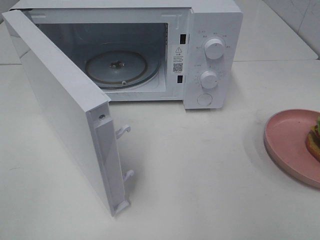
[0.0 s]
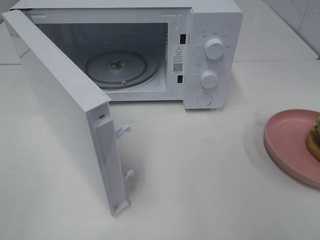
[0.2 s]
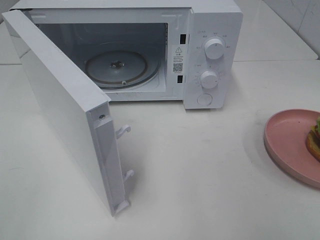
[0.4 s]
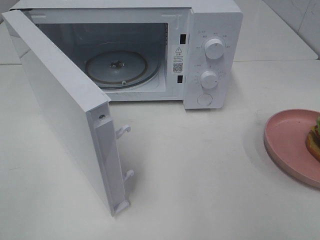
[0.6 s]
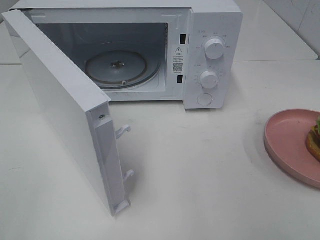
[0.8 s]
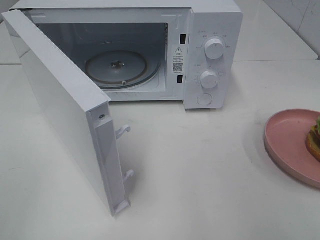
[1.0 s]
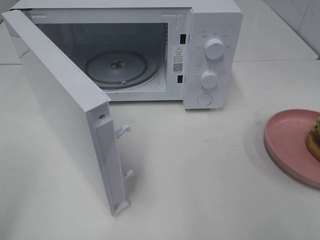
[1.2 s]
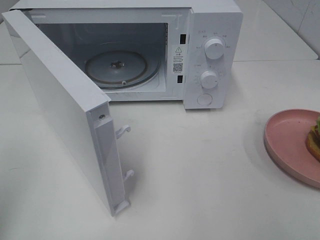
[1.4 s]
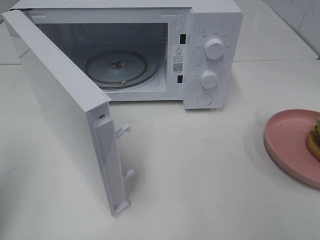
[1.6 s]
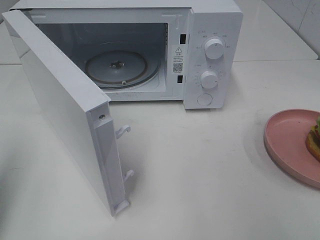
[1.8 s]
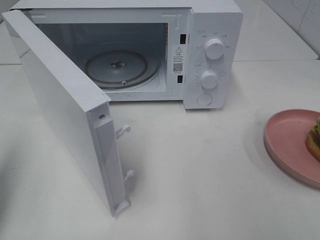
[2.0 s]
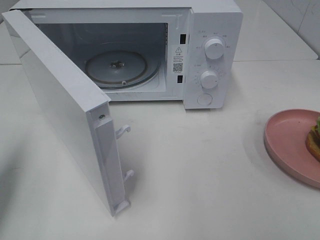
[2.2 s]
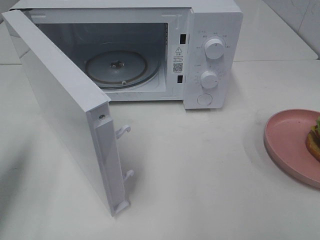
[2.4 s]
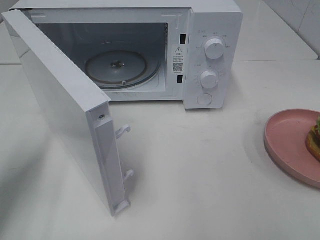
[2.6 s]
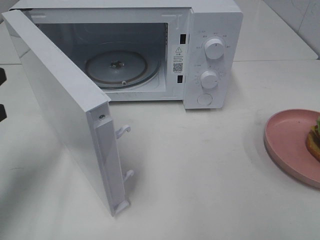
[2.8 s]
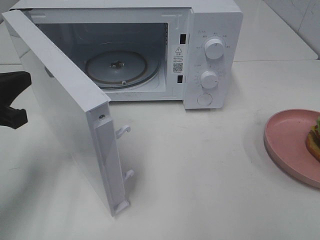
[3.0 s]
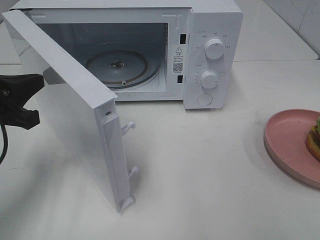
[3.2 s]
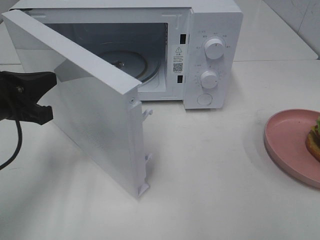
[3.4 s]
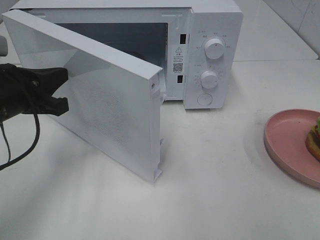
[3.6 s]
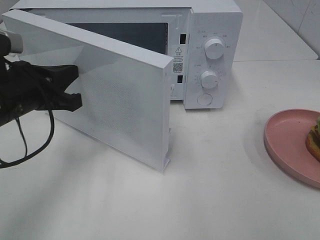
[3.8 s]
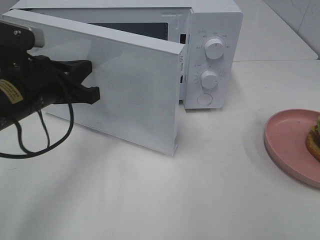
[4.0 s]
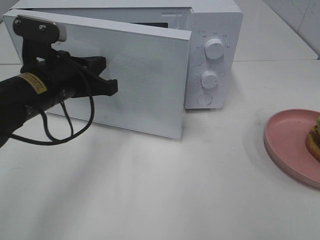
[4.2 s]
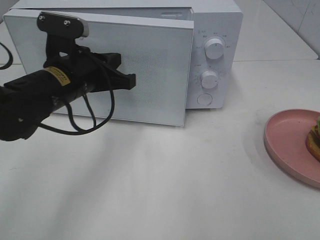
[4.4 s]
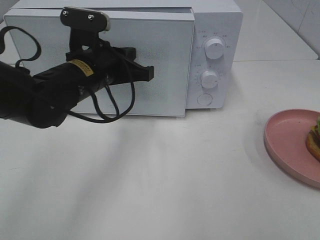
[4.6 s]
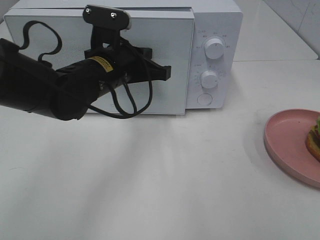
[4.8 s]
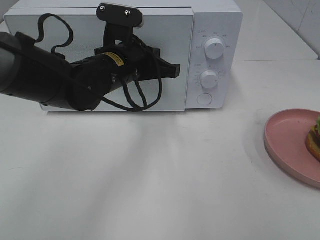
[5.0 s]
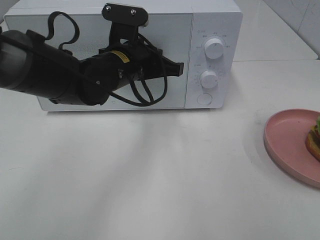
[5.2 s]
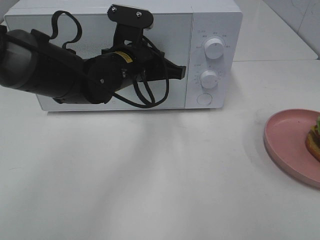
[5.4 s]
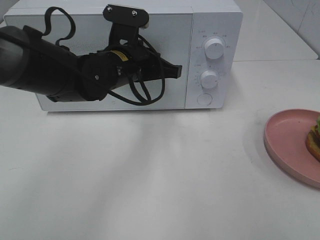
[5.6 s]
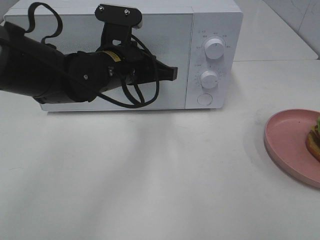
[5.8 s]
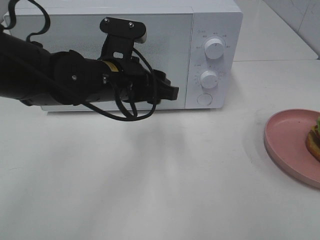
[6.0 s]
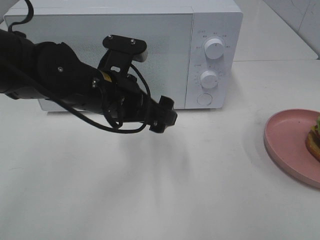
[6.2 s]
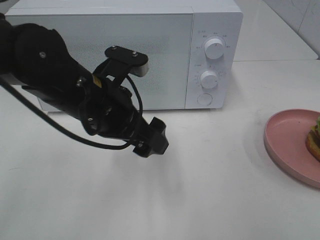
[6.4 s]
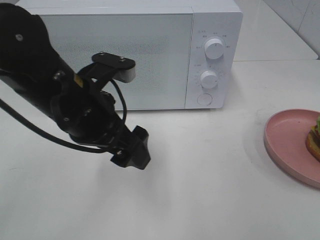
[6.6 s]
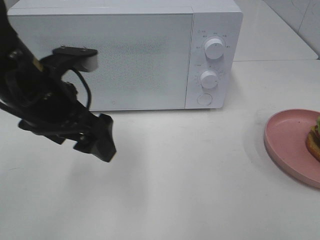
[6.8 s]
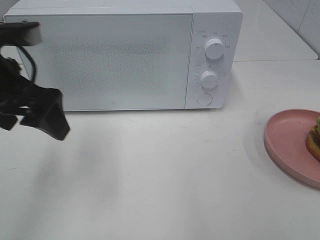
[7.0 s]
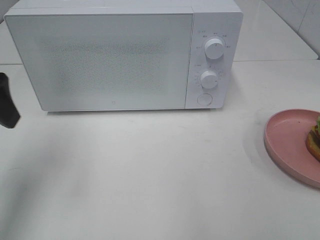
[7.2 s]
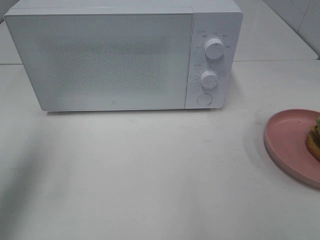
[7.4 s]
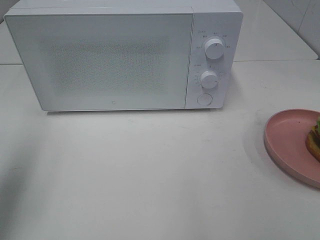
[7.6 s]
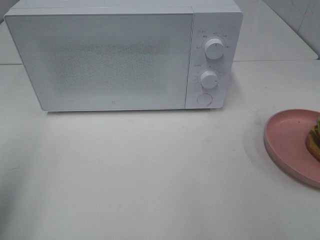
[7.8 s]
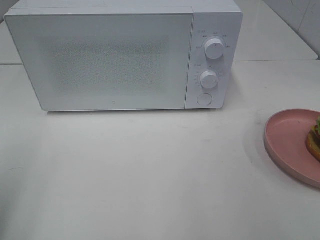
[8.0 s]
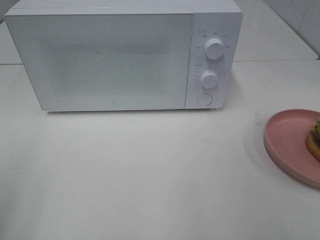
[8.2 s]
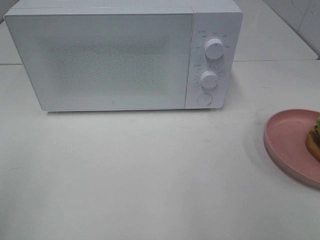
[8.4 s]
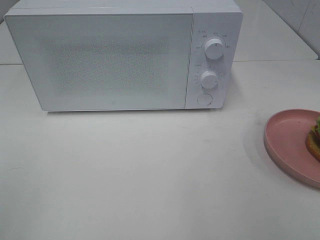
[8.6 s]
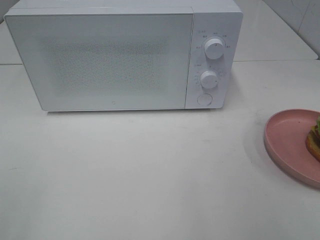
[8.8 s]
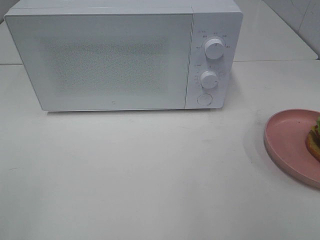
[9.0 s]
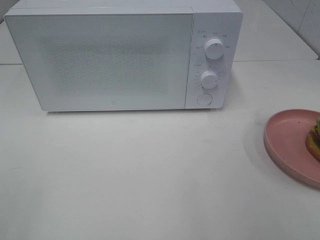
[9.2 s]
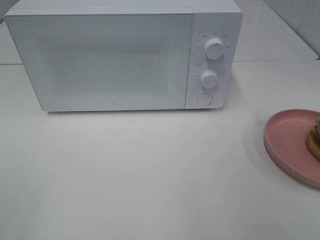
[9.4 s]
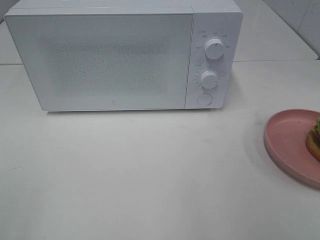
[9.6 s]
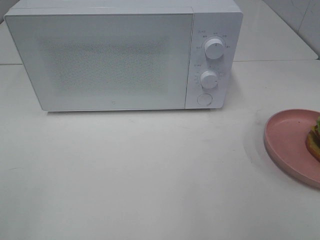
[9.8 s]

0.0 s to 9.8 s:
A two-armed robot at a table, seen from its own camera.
Task of the whole recording: Heat the burger.
Step, 0.0 to 6.0 s: Left hand: close the microwave door.
1.4 to 2.8 s: The left gripper shifts approximately 15 cm forward and downward.
2.8 to 4.2 s: The left gripper is displaced to the right and forward by some 15 cm.
4.2 to 5.6 s: The left gripper heads to the right and forward, covering roughly 10 cm.
5.6 to 7.0 s: The left gripper goes approximately 20 cm to the left, backward and upward, and opens up.
7.0 to 8.4 s: The left gripper shifts roughly 20 cm backward and to the left.

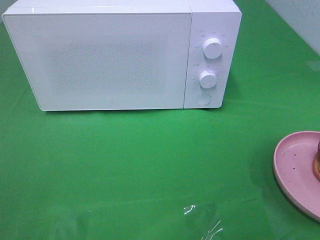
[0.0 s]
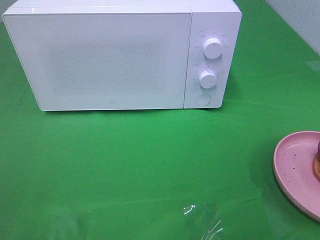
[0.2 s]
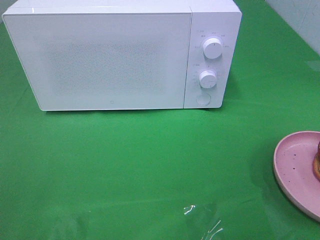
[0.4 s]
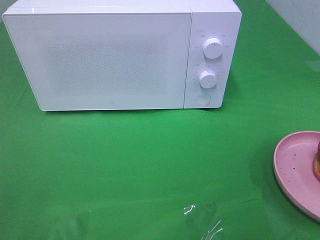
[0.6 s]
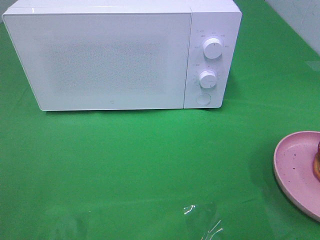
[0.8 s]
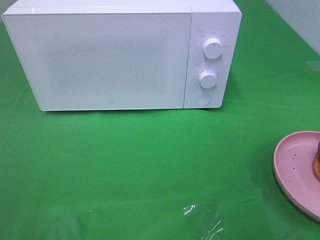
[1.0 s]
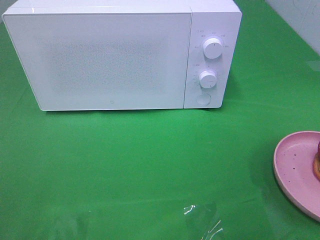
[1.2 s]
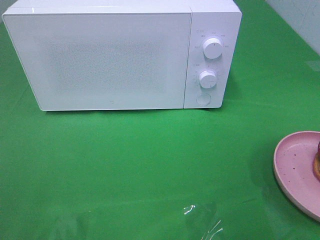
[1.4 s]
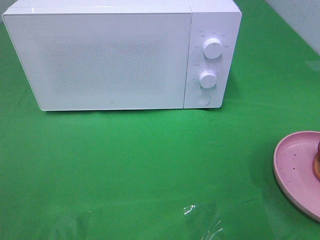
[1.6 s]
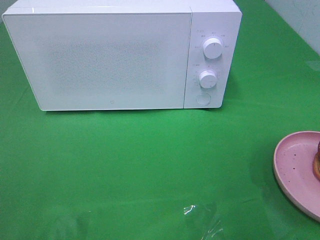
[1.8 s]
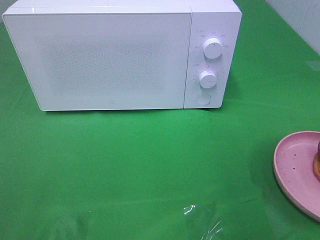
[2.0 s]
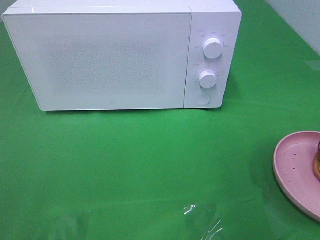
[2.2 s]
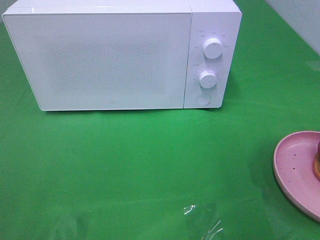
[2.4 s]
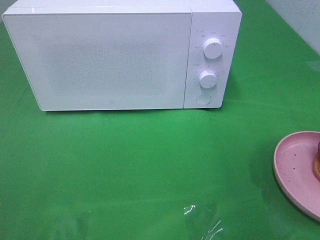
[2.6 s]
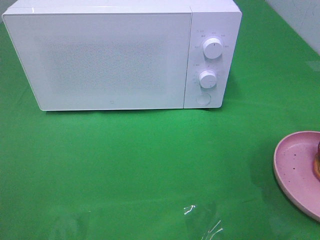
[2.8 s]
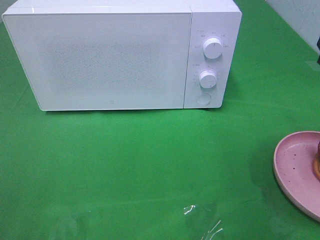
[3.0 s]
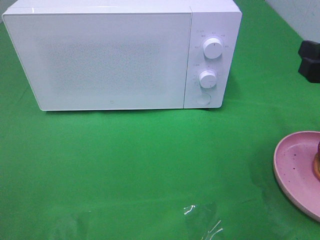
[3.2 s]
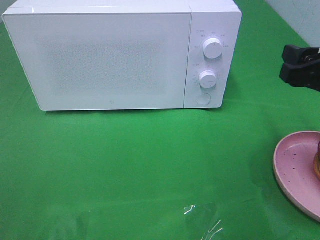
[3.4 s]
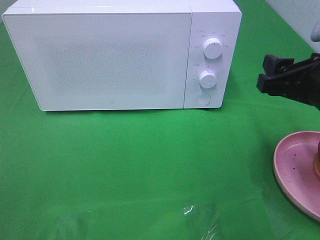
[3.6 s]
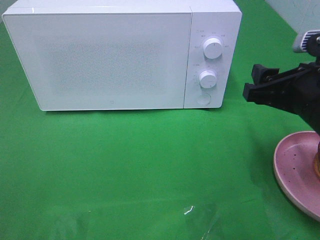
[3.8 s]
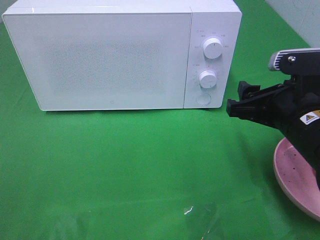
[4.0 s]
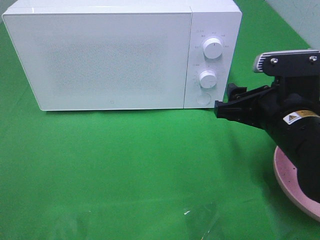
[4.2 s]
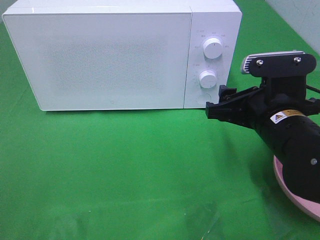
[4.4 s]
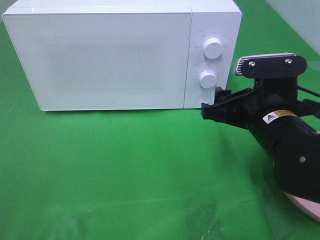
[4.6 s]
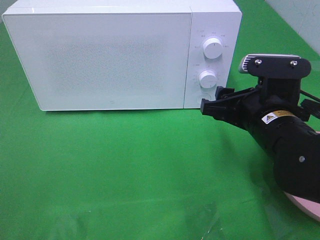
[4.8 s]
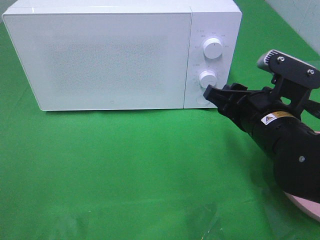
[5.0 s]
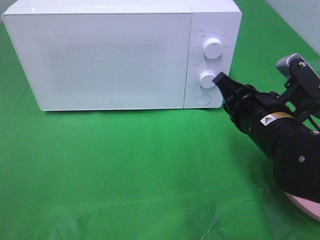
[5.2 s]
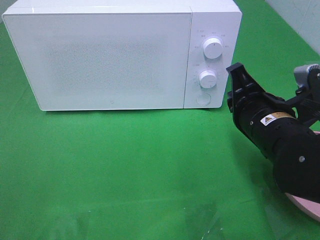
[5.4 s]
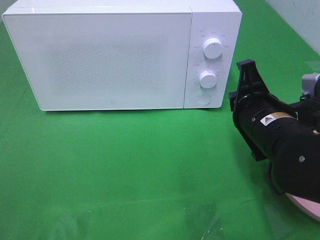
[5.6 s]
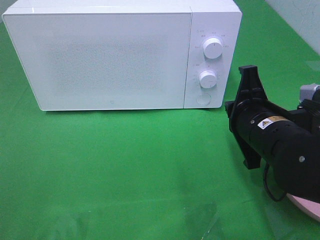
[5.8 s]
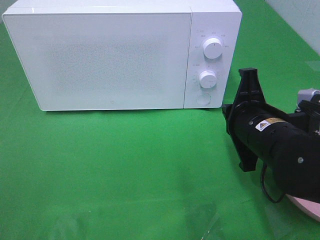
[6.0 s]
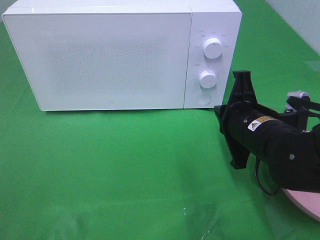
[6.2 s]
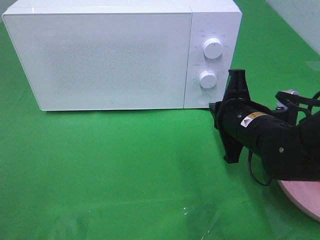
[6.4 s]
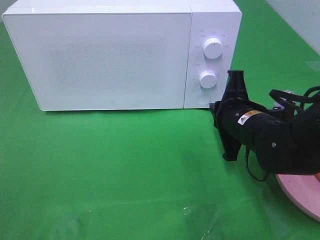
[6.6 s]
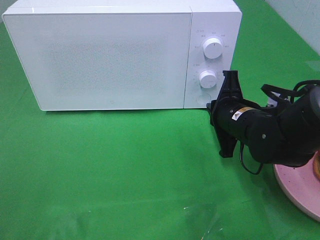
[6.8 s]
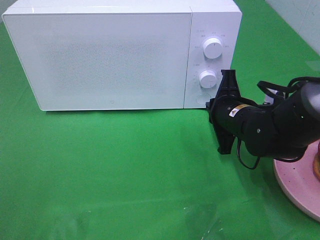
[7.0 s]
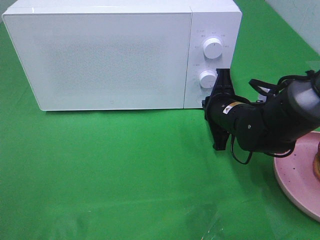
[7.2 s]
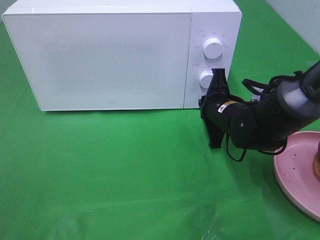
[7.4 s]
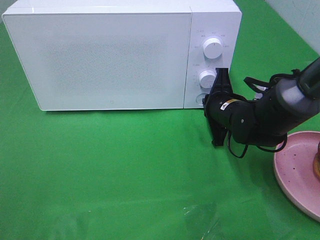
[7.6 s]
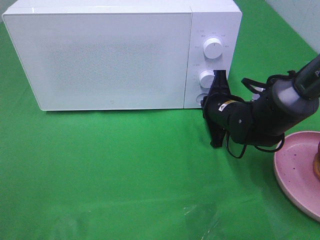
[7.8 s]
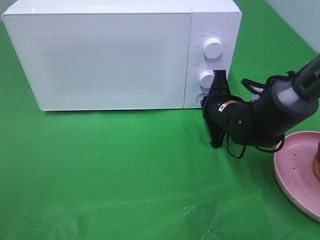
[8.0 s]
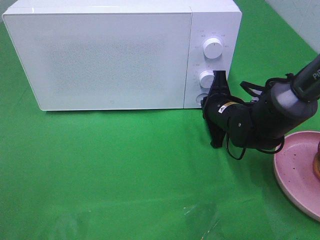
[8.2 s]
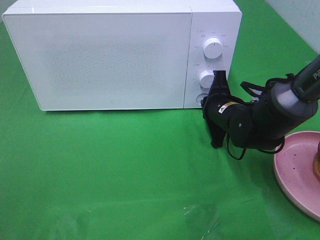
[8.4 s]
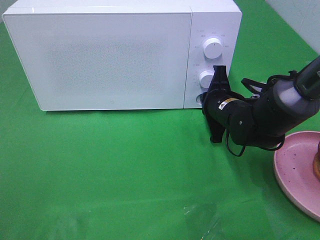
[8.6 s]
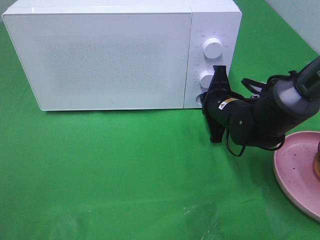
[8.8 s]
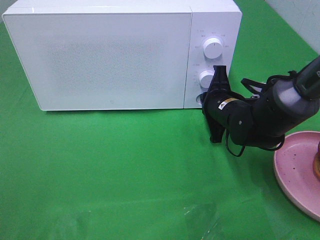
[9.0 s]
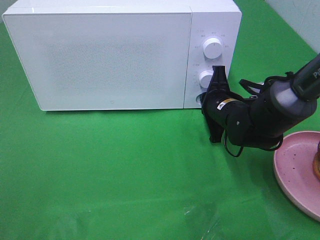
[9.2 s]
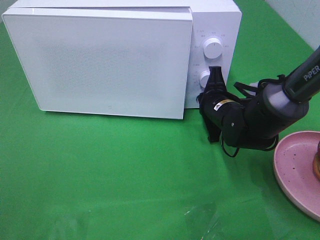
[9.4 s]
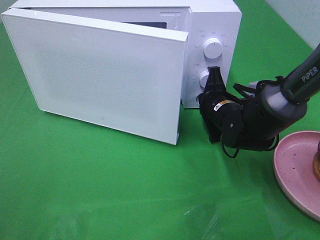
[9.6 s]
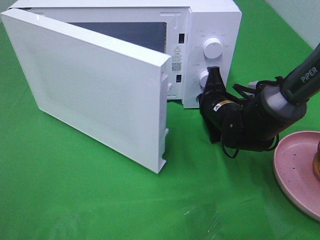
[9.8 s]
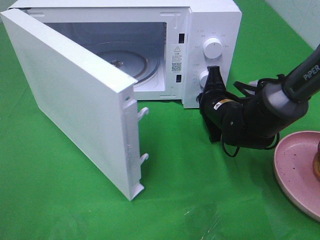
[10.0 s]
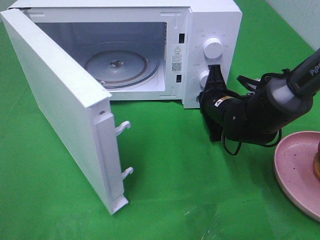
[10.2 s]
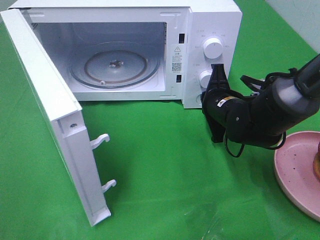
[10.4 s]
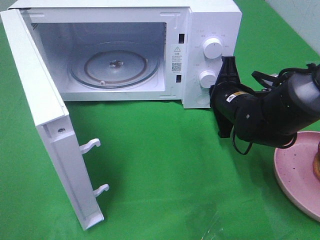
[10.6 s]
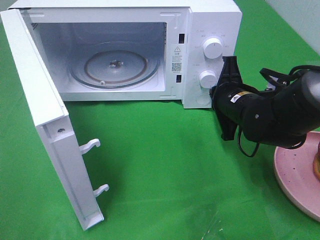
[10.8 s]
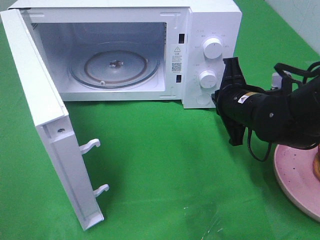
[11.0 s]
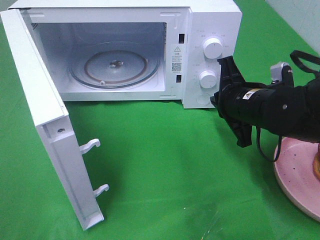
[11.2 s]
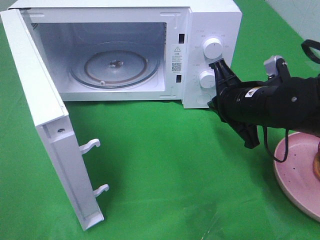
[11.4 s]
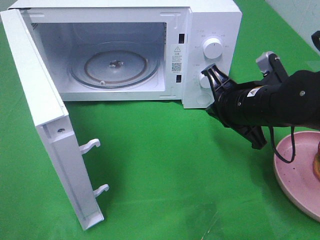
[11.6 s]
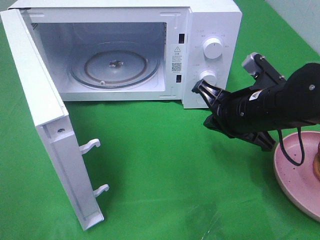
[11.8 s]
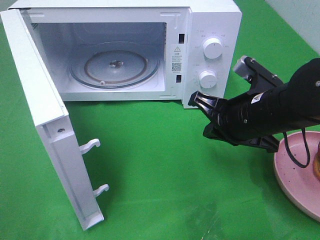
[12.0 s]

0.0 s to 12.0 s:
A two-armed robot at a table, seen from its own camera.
Task of the whole recording: Heat the burger.
Step, 0.0 to 11.0 s: Right hand: press the switch.
3.0 to 4.4 s: The right gripper moves to the left and downward, some 15 cm.
4.4 to 6.0 s: The right gripper closes its fingers.
6.0 to 7.6 s: The right gripper goes about 15 cm forward and downward.
7.6 to 9.0 s: Both grippers stay about where they are.
10.4 to 12.0 s: The right gripper moves backward and upward, approximately 10 cm.
